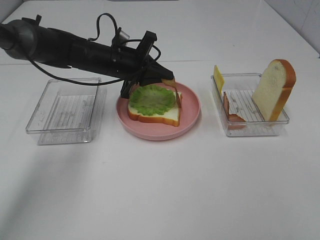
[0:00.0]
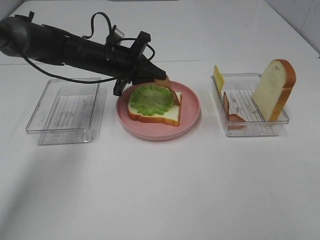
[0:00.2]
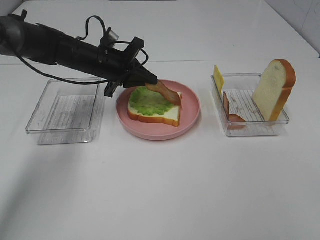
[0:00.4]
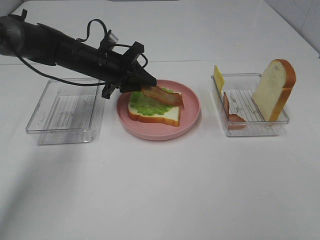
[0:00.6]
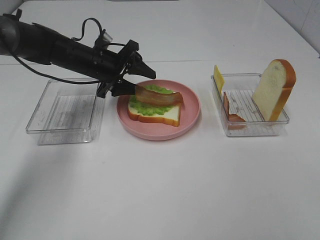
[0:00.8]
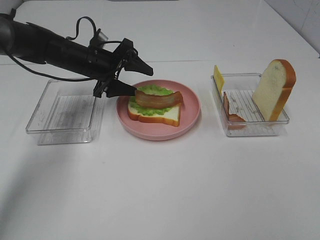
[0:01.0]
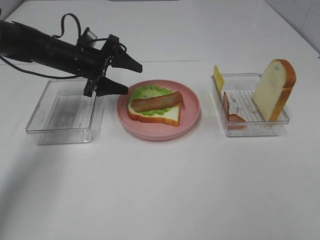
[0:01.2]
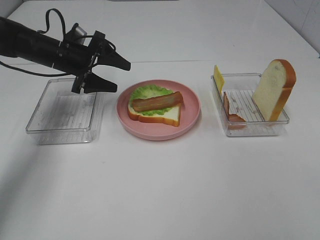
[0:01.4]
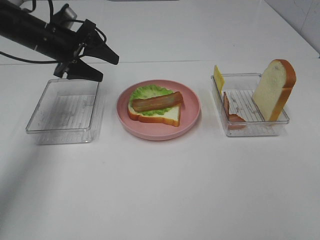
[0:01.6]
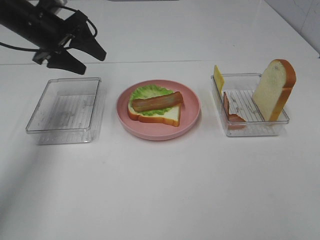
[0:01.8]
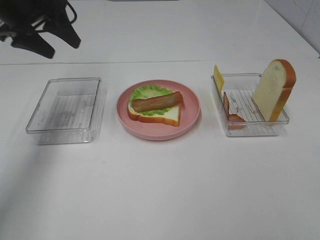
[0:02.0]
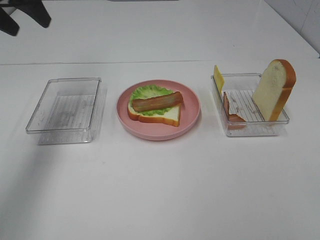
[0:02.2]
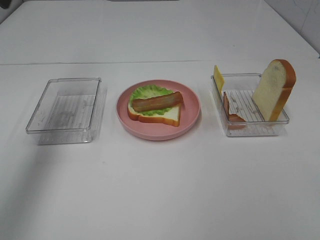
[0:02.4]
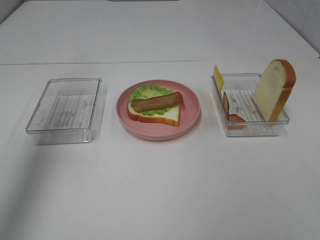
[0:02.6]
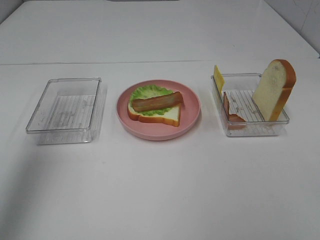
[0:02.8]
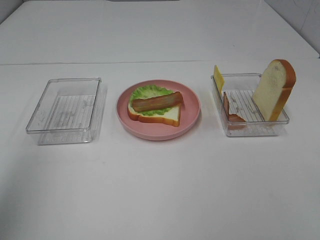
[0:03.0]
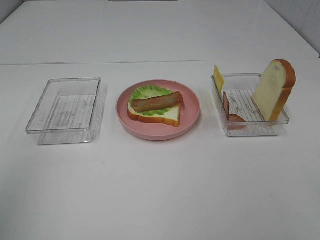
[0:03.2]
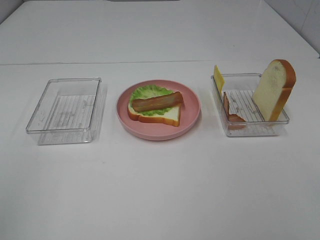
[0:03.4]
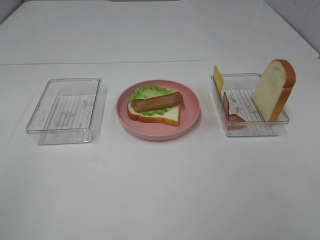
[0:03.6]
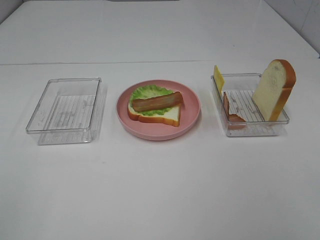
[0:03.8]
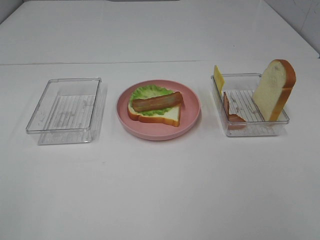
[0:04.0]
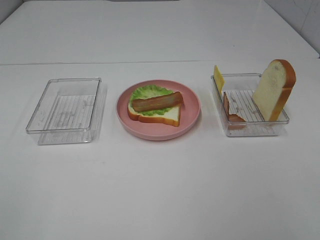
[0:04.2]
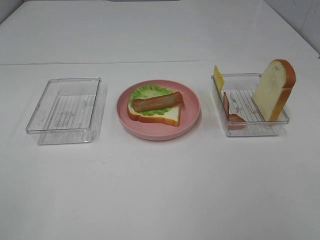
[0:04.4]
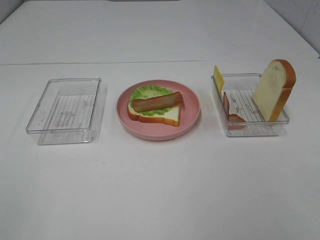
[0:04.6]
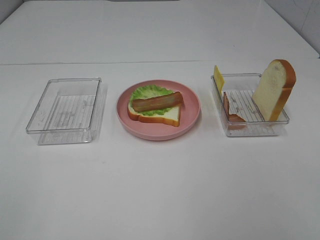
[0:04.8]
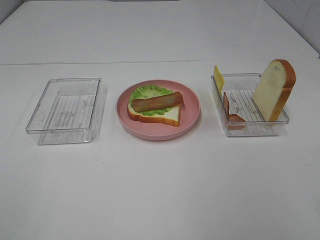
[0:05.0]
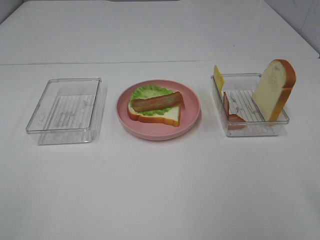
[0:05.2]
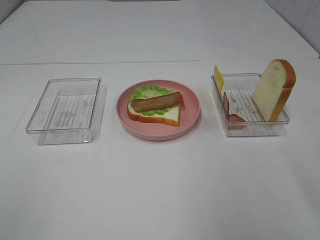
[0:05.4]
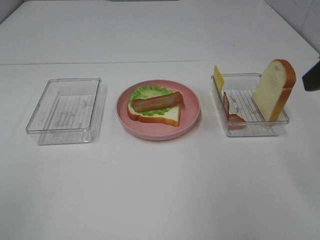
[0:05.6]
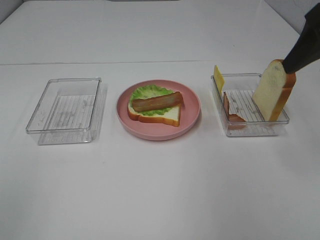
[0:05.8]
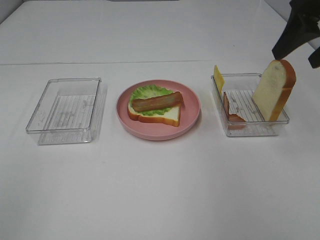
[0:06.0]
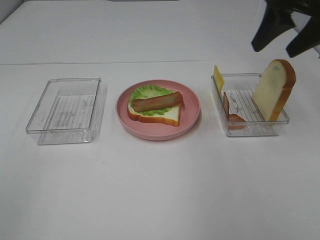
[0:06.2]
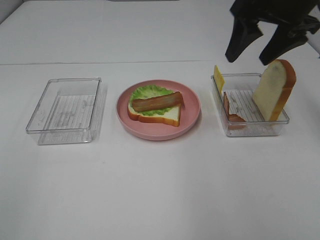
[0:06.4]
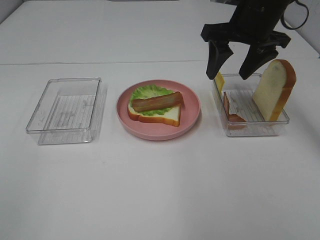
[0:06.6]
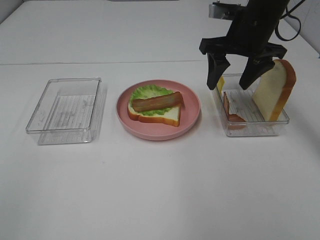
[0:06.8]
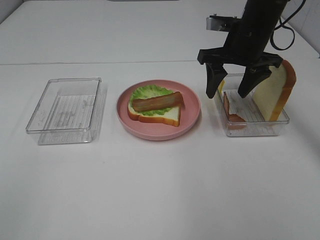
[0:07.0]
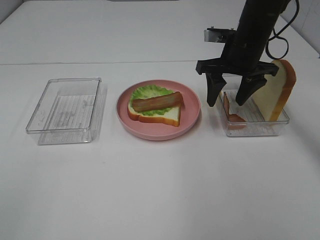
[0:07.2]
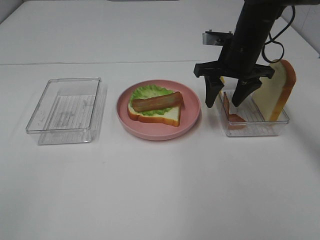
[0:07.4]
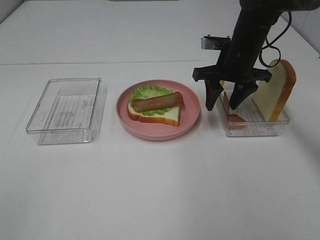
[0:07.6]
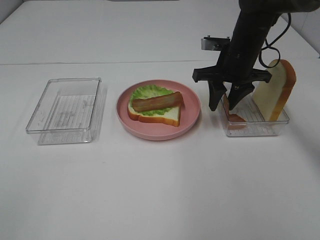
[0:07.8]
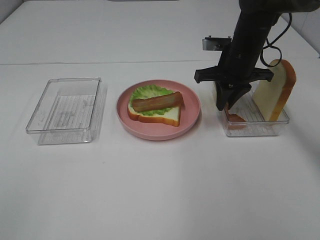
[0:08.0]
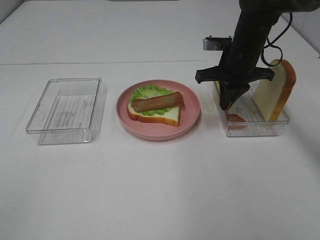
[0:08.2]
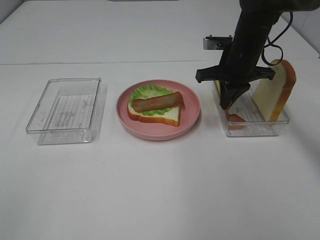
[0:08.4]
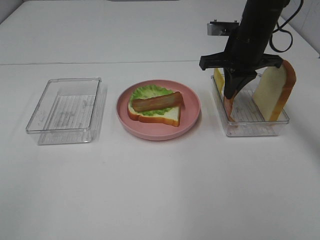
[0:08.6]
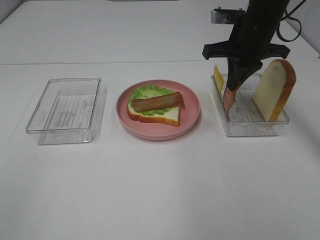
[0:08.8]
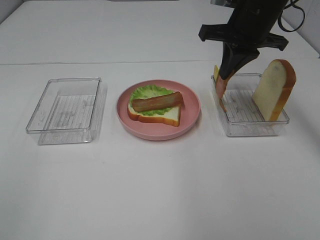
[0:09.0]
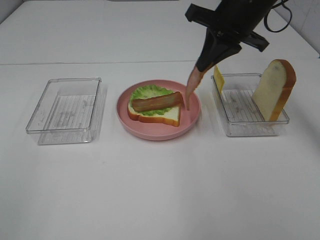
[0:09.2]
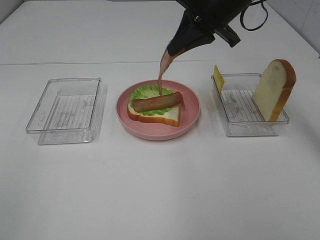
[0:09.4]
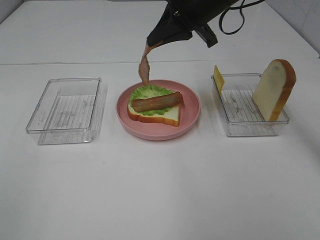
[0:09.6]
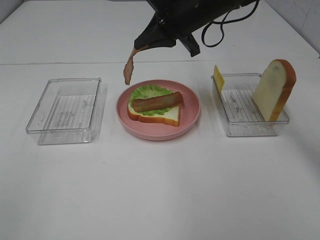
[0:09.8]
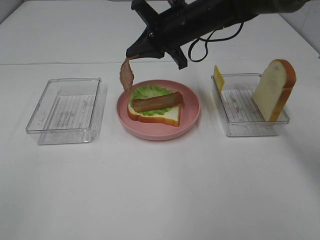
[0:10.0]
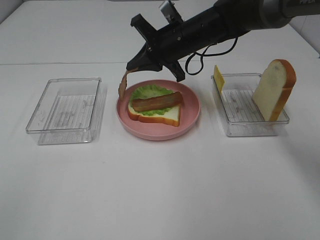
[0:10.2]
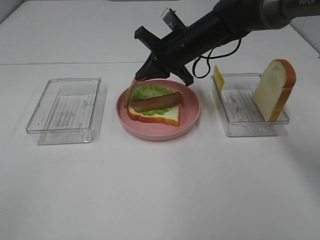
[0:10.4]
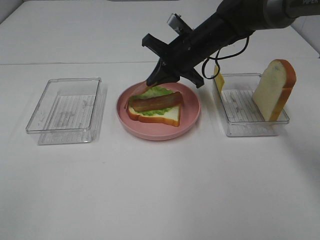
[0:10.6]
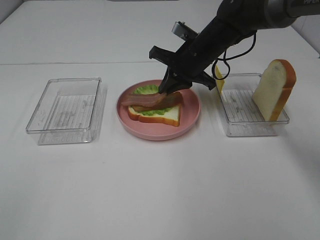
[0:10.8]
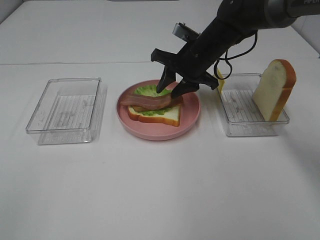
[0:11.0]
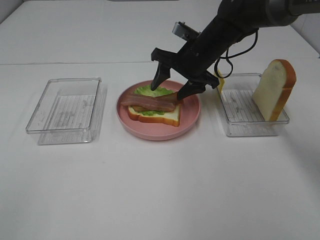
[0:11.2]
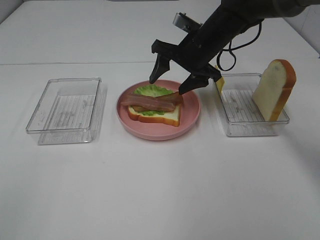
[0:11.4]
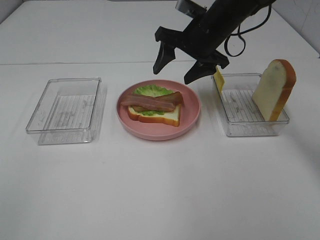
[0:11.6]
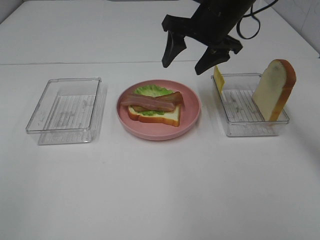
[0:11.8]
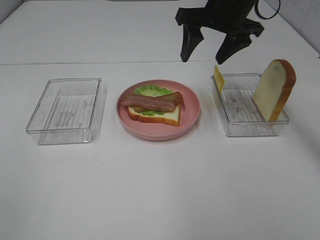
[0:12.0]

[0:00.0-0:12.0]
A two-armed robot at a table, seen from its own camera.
Task of the whole recording: Make sandwiches.
Step, 0:01.6 to 0:08.2: Right hand:grab the bacon.
Step, 0:08.4 to 0:11.4: Right hand:place bacon on bacon.
0:00.0 to 0:01.6: The left gripper heads to the left and upward, covering roughly 15 cm, and opens its fingers.
0:01.6 to 0:03.0: The left gripper moves backward and upward, roughly 40 cm.
0:03.0 to 0:04.4: The left gripper moves backward and downward, about 20 cm.
0:04.4 to 0:06.0: The right gripper shifts about 30 cm forward.
0:06.0 to 0:07.6: The right gripper moves downward, to the left and forward, approximately 20 cm.
0:07.6 to 0:09.0: The right gripper travels upward by roughly 10 cm, and closes its fingers.
0:09.0 to 0:10.4: The right gripper is displaced downward and to the left by approximately 10 cm.
0:10.4 to 0:12.0: The right gripper travels upward and to the right by approximately 10 cm, and opens its fingers.

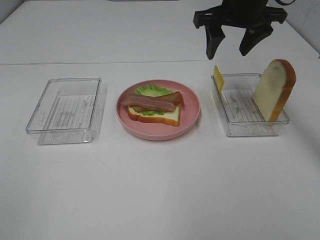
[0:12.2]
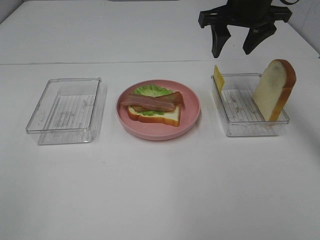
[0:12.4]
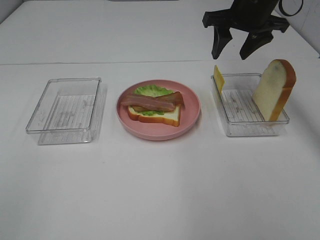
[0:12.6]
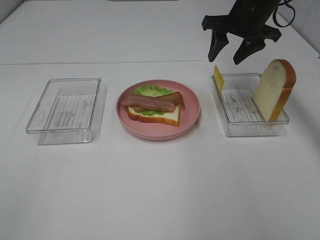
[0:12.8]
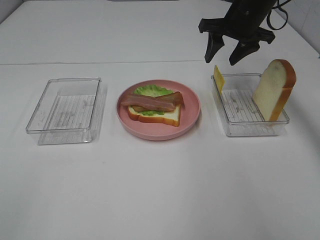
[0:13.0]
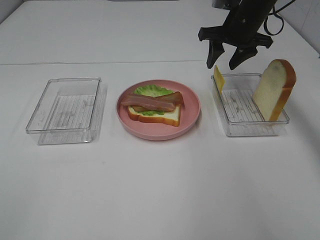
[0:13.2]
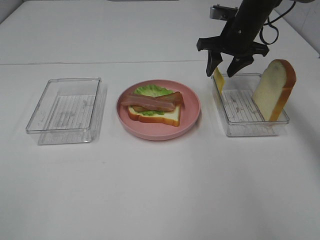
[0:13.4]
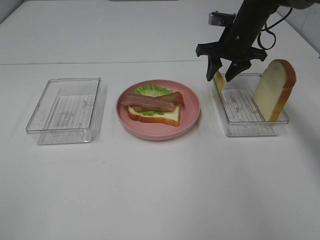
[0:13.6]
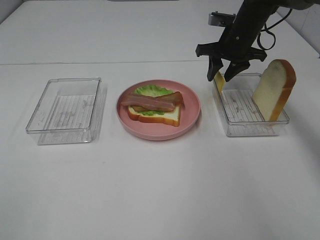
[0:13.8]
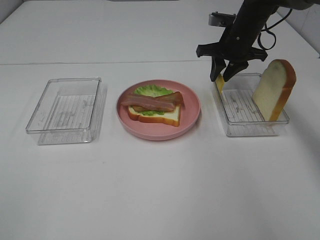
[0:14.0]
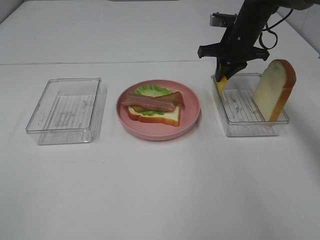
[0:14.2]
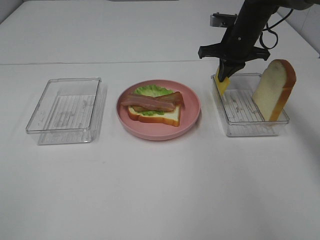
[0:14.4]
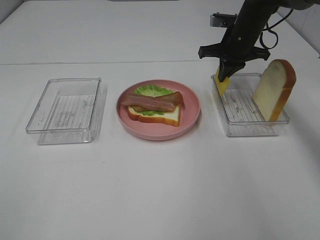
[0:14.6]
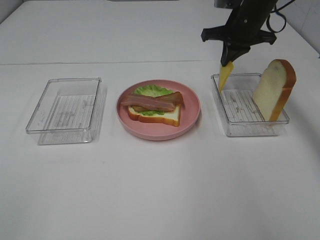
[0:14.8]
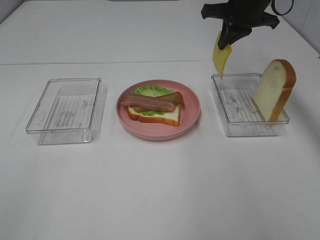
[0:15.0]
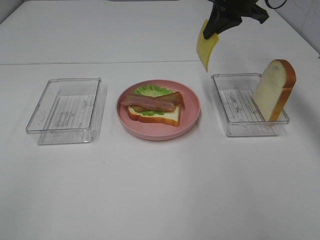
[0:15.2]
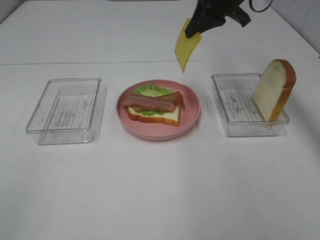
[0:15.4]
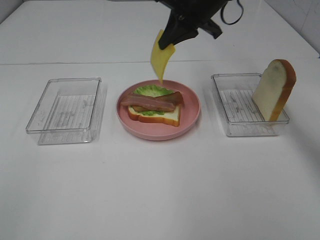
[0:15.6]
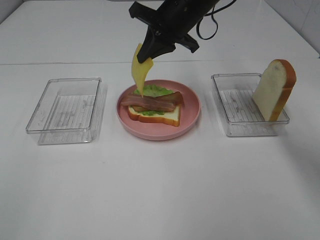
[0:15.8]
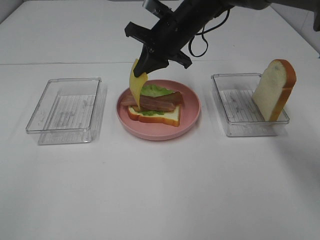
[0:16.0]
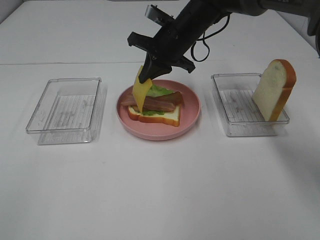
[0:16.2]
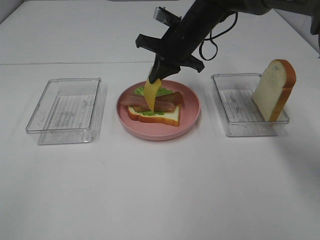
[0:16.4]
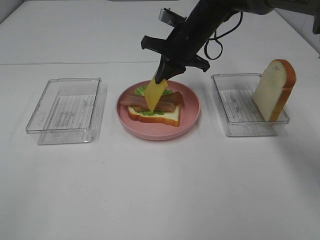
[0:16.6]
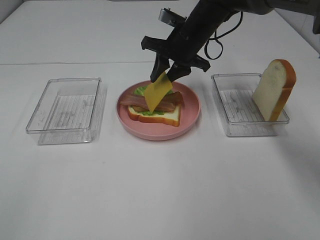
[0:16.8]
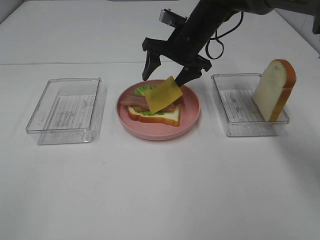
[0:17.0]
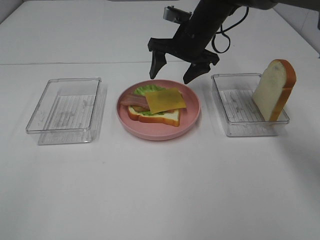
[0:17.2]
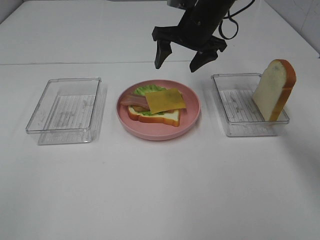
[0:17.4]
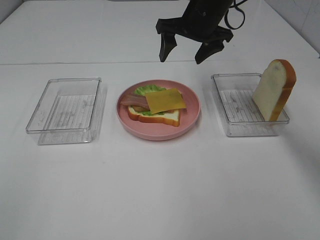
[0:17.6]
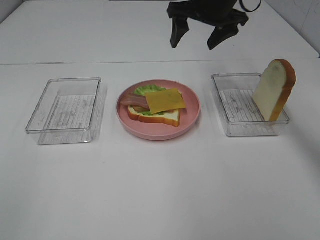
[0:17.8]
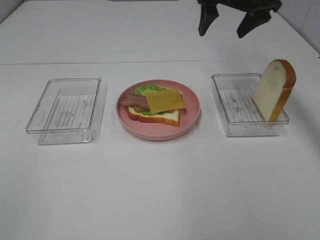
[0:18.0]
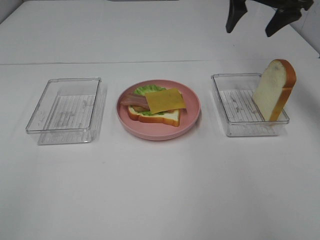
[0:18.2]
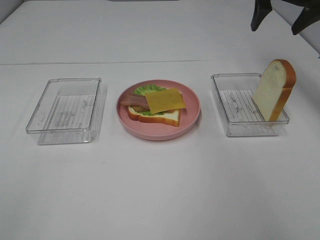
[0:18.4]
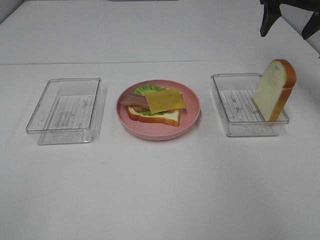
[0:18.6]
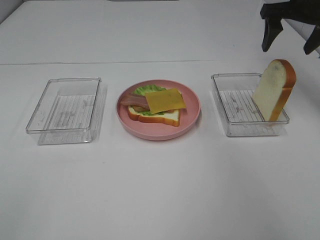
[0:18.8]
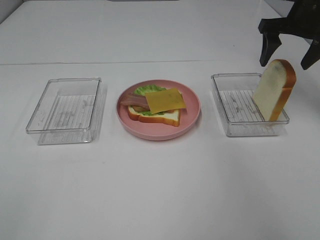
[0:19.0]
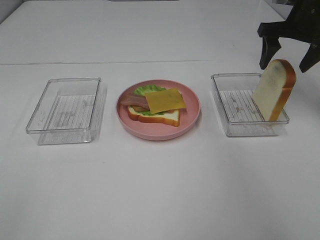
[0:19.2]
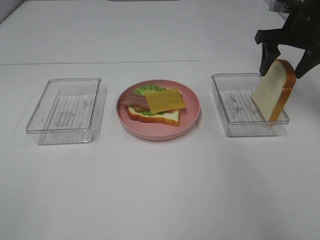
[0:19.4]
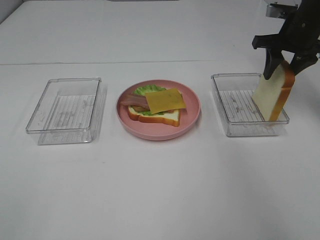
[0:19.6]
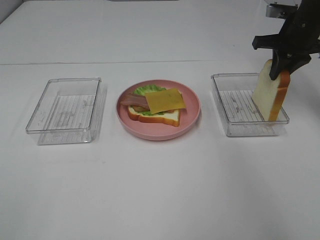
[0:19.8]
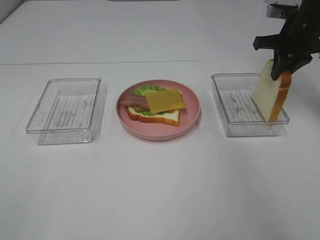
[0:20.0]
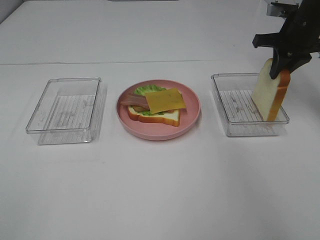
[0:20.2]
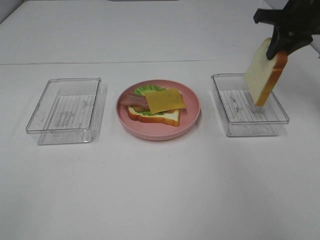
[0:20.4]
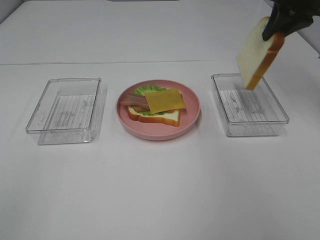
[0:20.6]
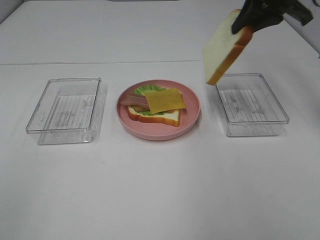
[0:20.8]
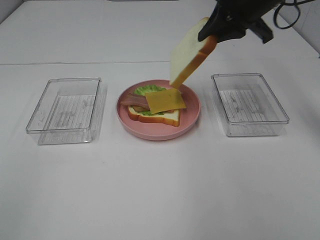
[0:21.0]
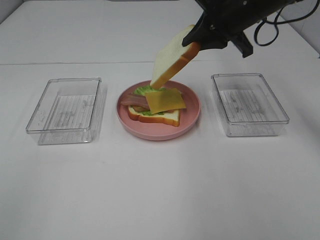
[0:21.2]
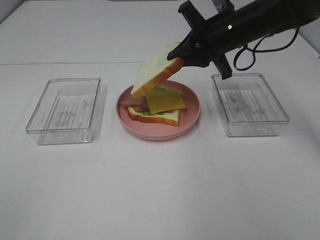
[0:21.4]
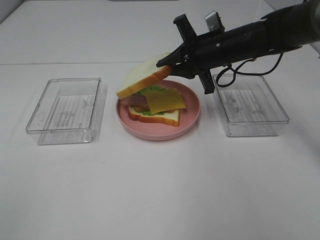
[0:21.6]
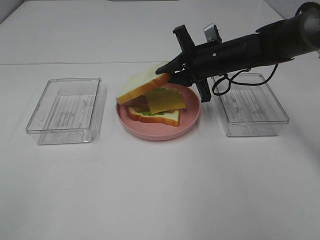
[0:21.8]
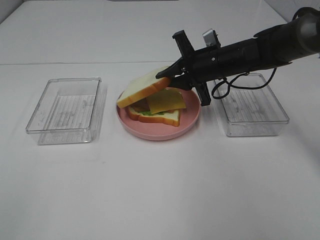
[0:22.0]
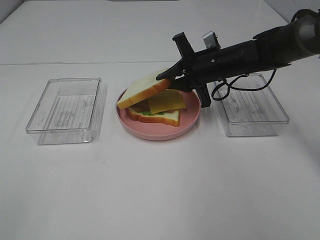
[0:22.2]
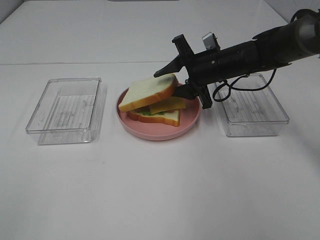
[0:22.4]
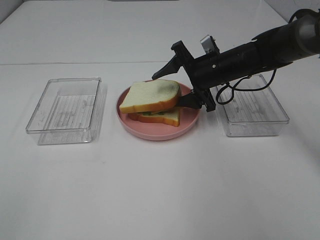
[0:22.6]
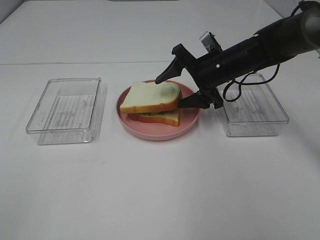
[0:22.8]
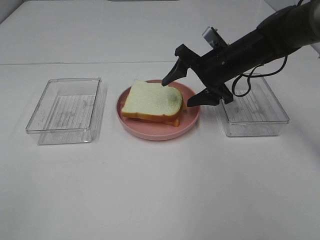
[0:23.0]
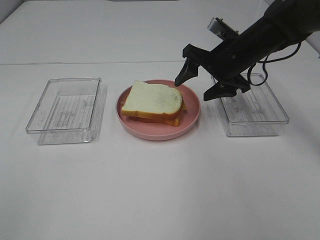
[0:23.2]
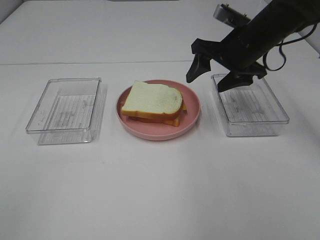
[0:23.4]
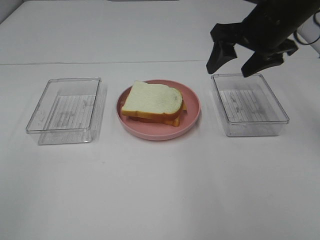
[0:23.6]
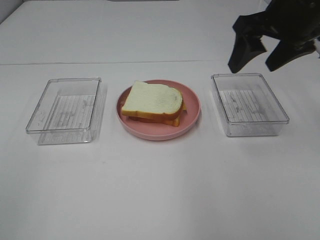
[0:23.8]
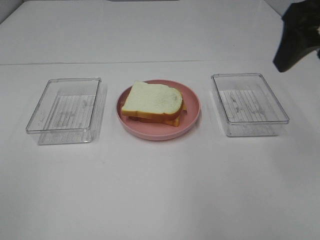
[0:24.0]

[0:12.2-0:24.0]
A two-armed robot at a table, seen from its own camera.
Task of the whole recording: Make sandwiches.
Step, 0:12.2 to 0:14.6: Right hand:grab the cheese slice.
Step, 0:14.8 to 0:17.4: Right hand:place the cheese slice on top of the bacon.
Step, 0:17.6 to 0:20.0: Right hand:grab the bread slice.
Step, 0:20.2 to 0:23.4: Right hand:place the bread slice on the cheese slice.
0:12.2 to 0:13.6: The right gripper travels downward and forward by about 15 cm.
0:13.6 to 0:15.2: The right gripper is displaced upward by about 10 cm, and closes its fingers.
0:15.2 to 0:16.6: The right gripper travels downward and to the left by roughly 15 cm.
0:16.6 to 0:18.2: The right gripper shifts approximately 20 cm to the right and upward, and opens up.
0:18.2 to 0:19.6: The right gripper heads downward and to the right, covering some 10 cm, and closes its fingers.
0:19.6 to 0:21.0: The right gripper moves to the left and upward, approximately 10 cm.
0:21.0 to 0:22.6: The right gripper shifts roughly 15 cm downward, and opens up.
0:22.6 to 0:24.0: The right gripper shifts some 25 cm upward and backward.
